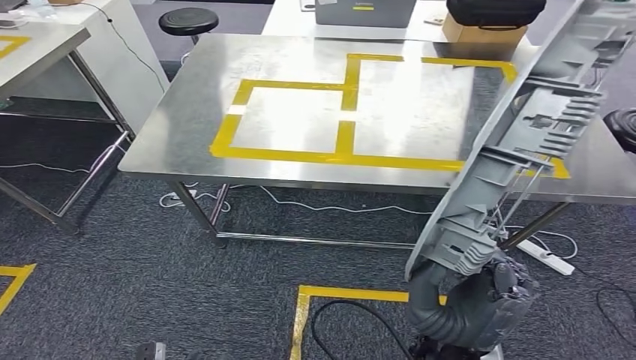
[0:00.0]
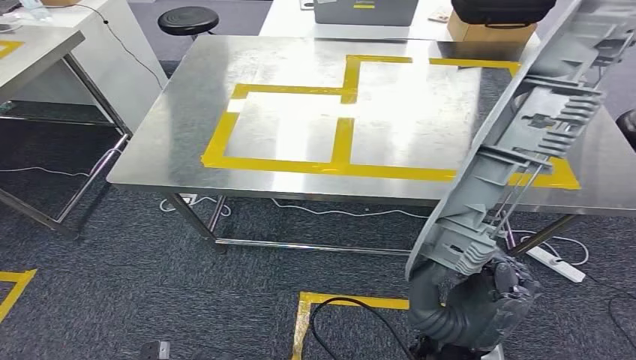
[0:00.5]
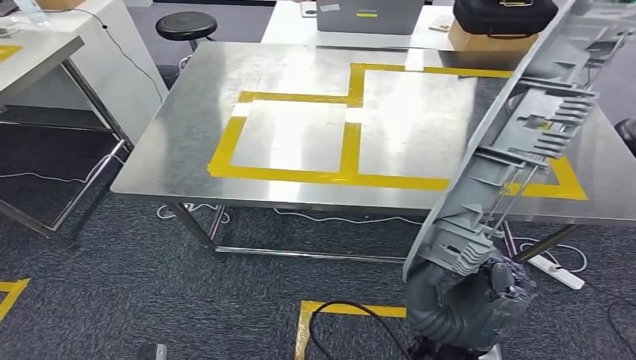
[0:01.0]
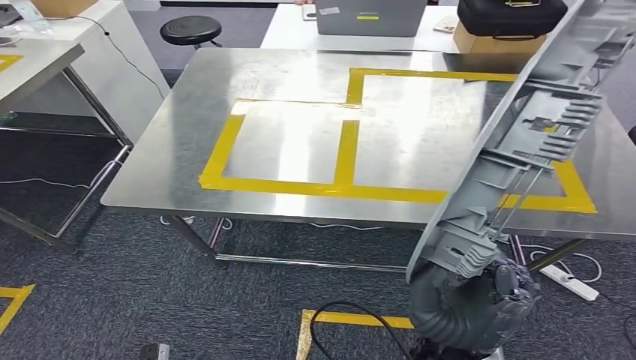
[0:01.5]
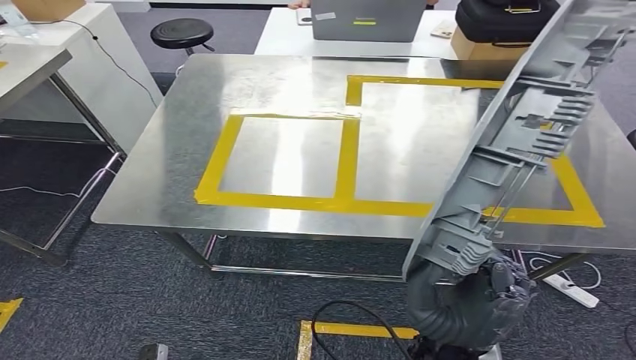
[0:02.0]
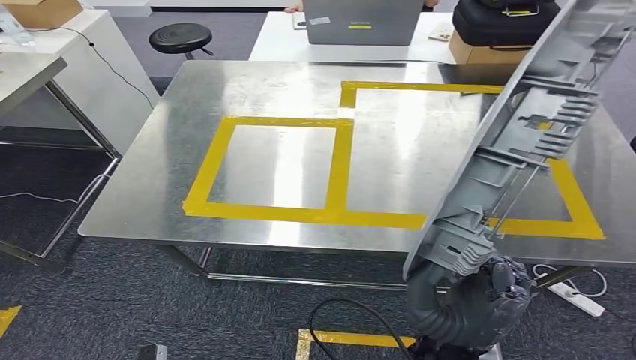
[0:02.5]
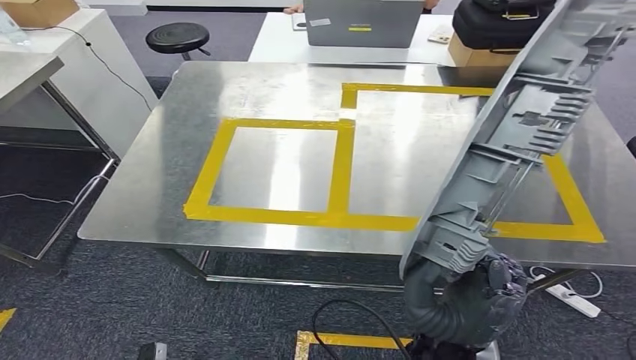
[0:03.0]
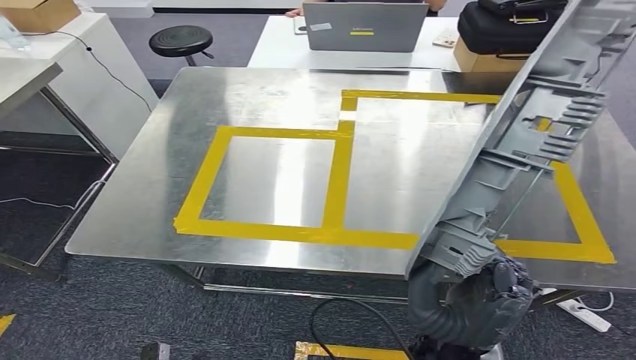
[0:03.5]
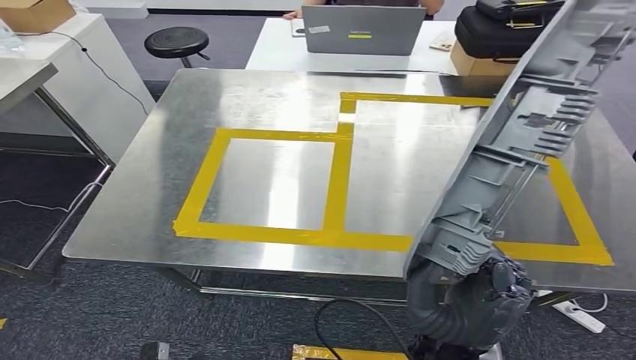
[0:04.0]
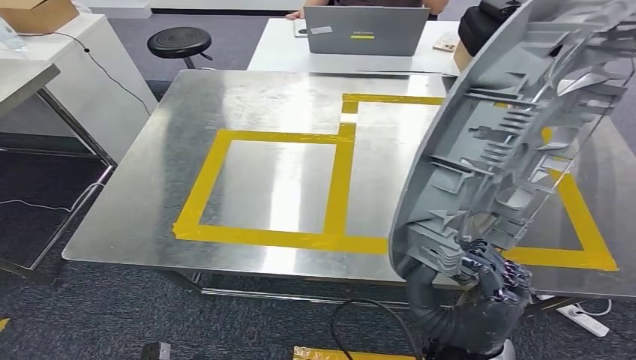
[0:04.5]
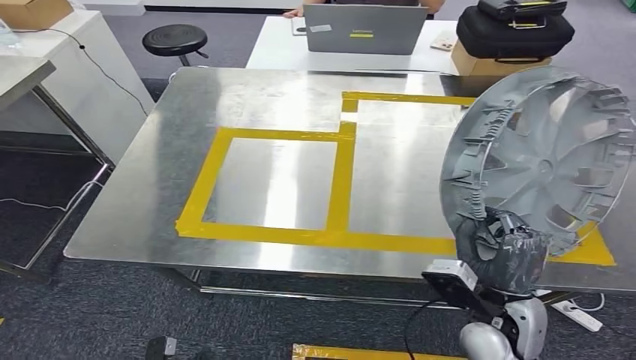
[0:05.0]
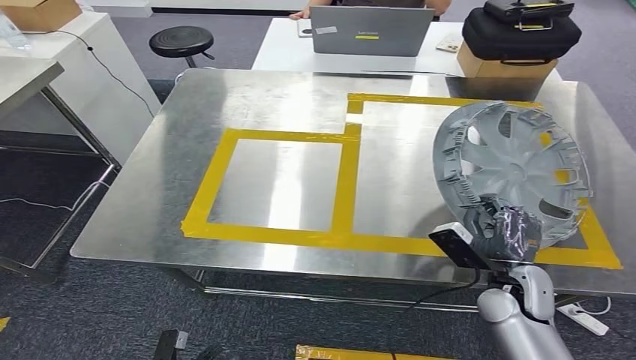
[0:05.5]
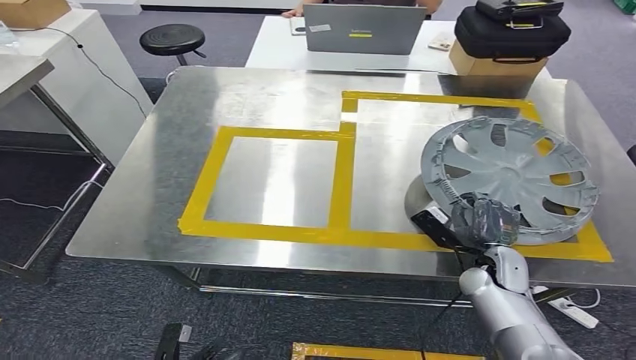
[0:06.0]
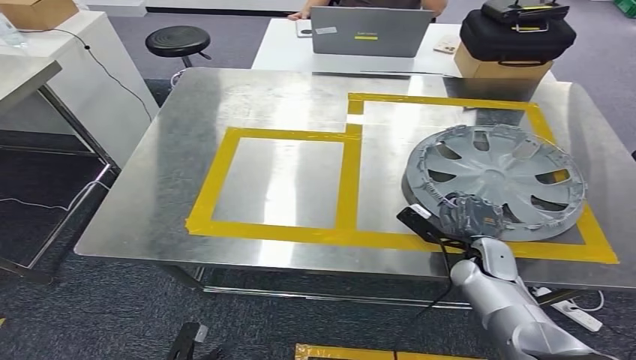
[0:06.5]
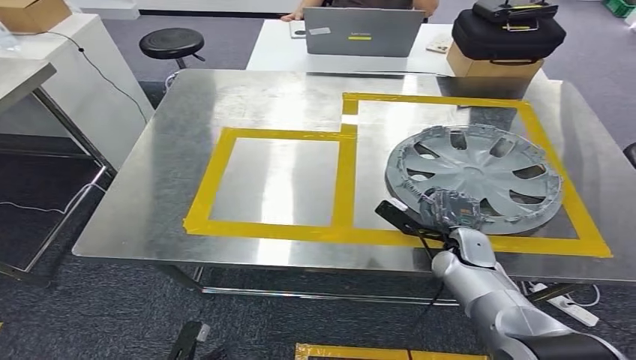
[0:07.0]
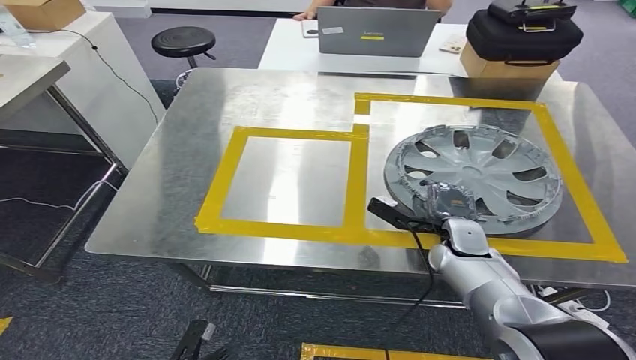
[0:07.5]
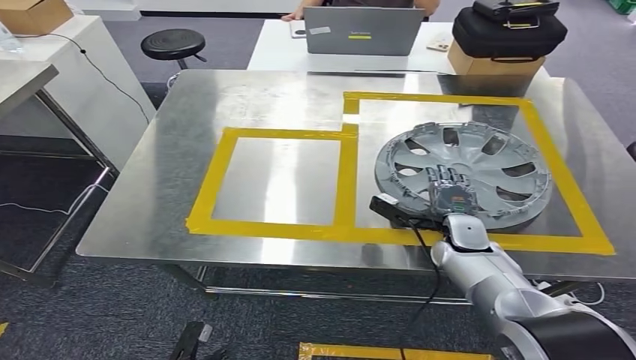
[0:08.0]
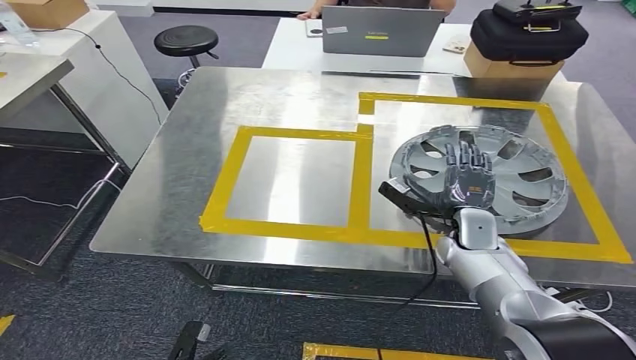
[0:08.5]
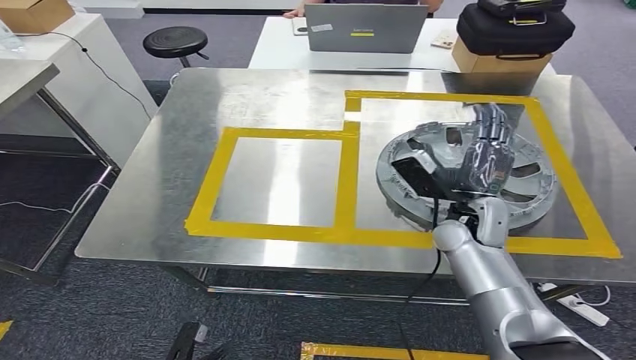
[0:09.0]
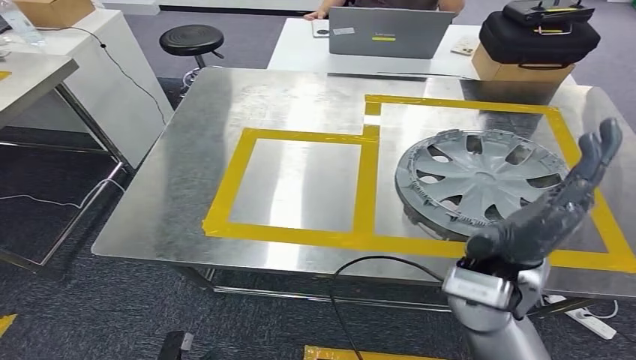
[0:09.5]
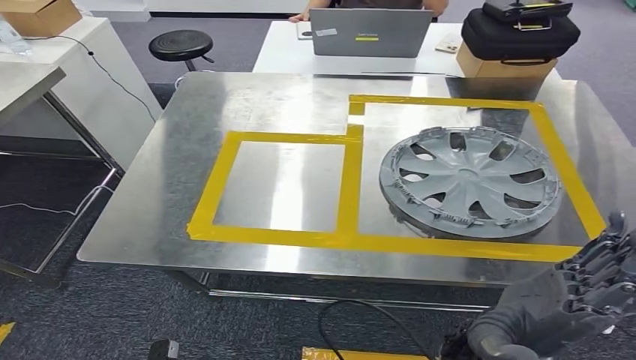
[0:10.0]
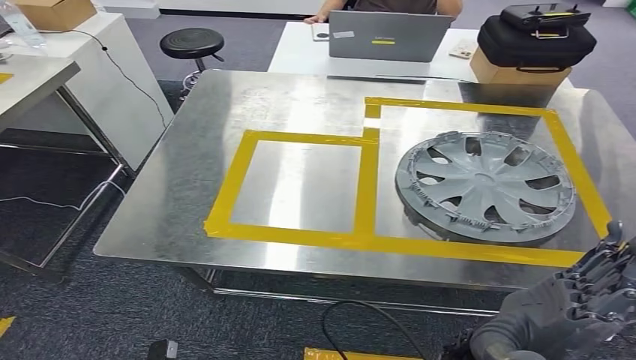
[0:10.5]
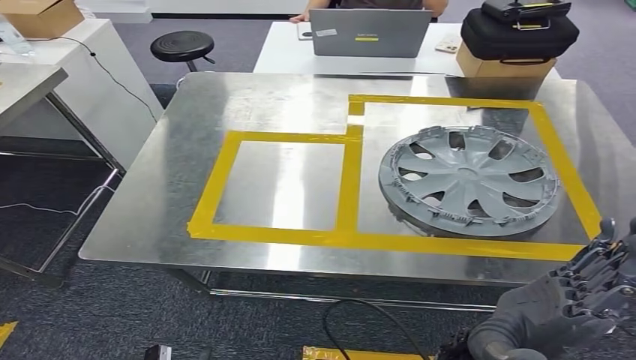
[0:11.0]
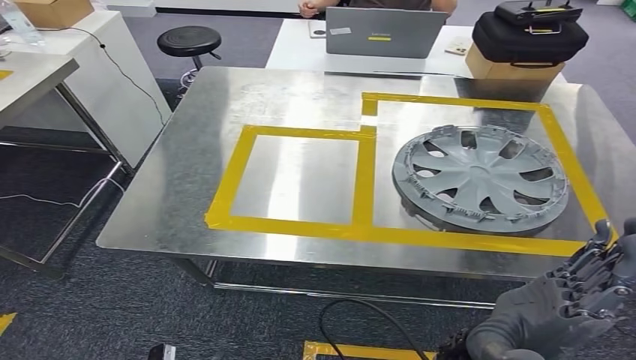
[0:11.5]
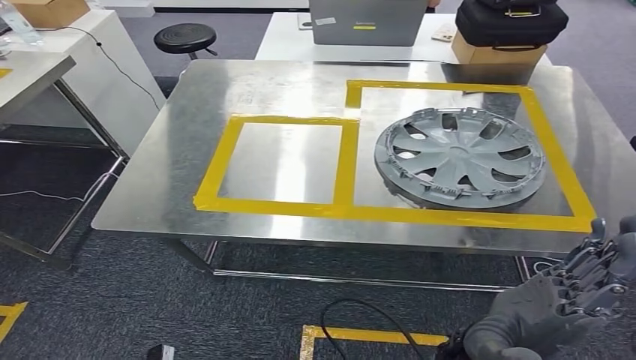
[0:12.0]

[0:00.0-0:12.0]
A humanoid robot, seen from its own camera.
Step, 0:00.0 to 0:03.5: Move the small component to the workbench.
Step, 0:04.0 to 0:10.0: Insert the small component into the corresponding slot on the workbench.

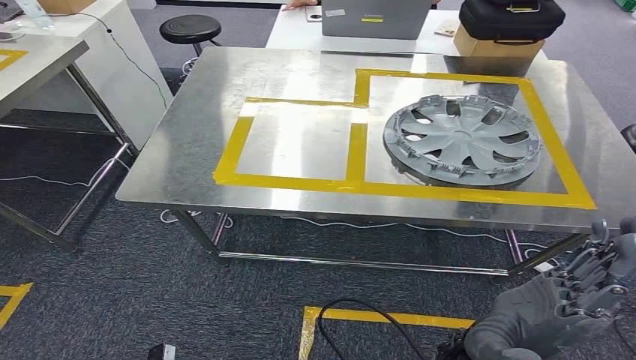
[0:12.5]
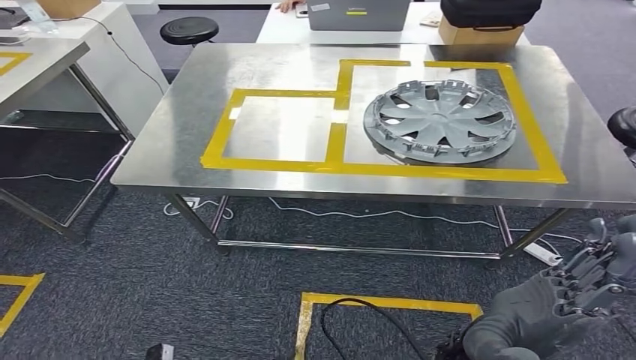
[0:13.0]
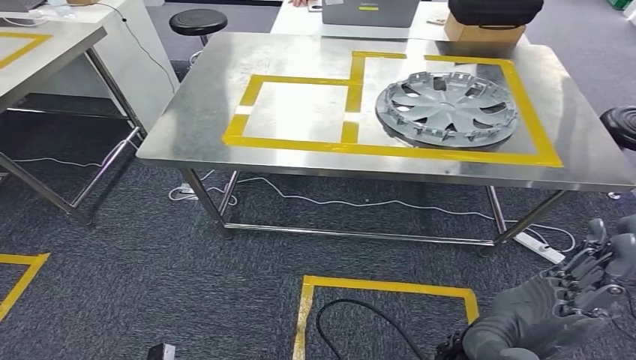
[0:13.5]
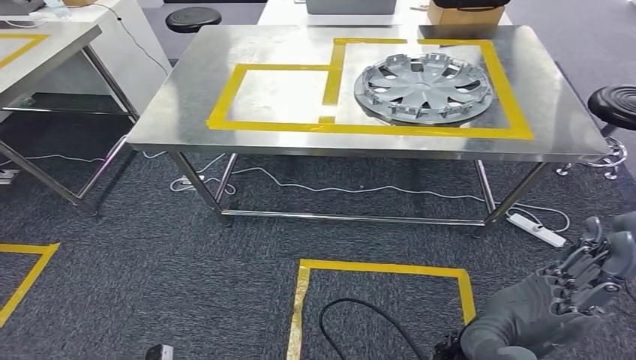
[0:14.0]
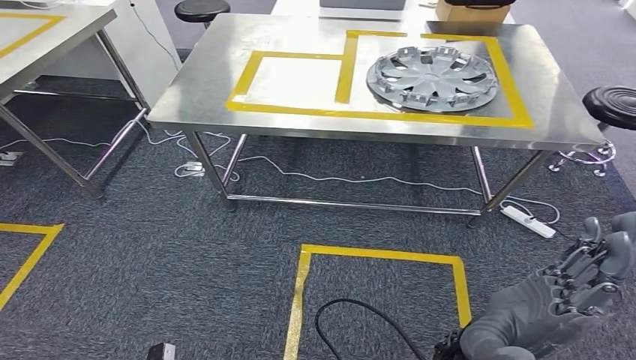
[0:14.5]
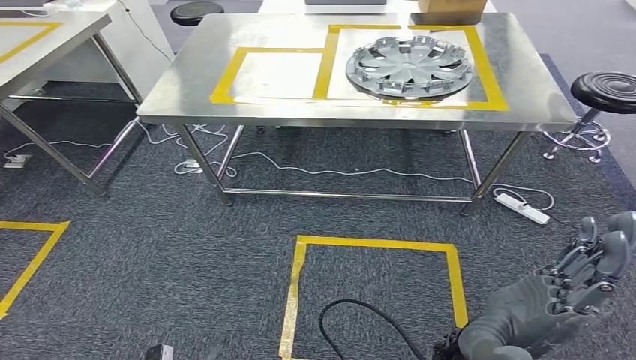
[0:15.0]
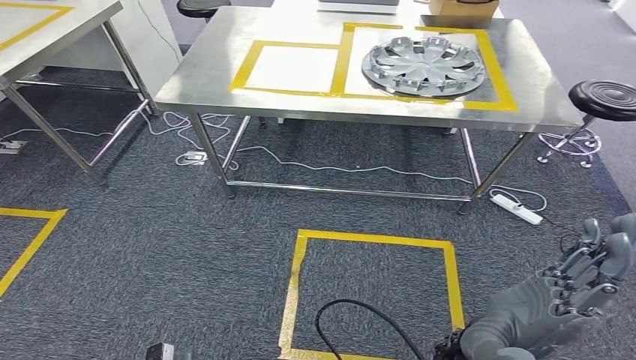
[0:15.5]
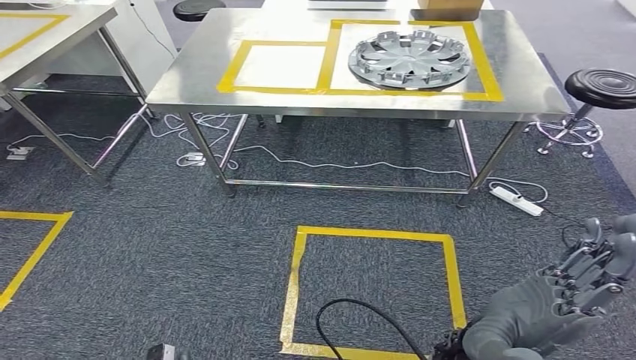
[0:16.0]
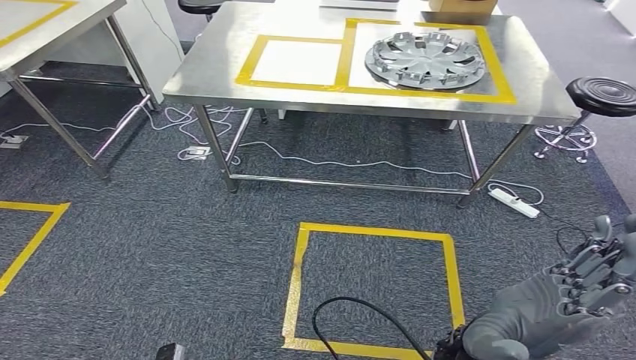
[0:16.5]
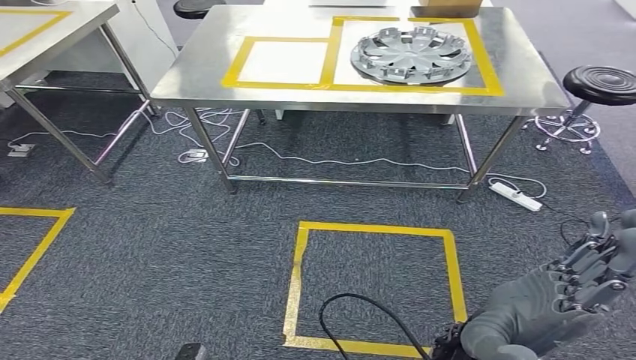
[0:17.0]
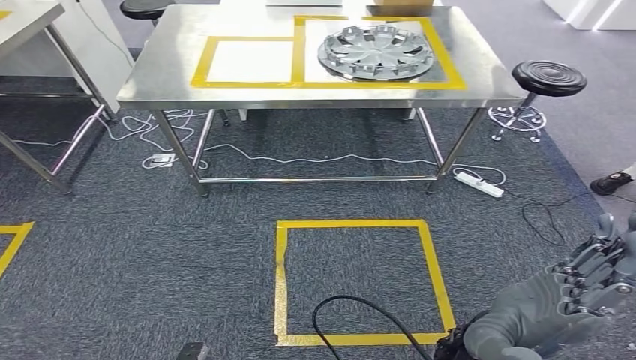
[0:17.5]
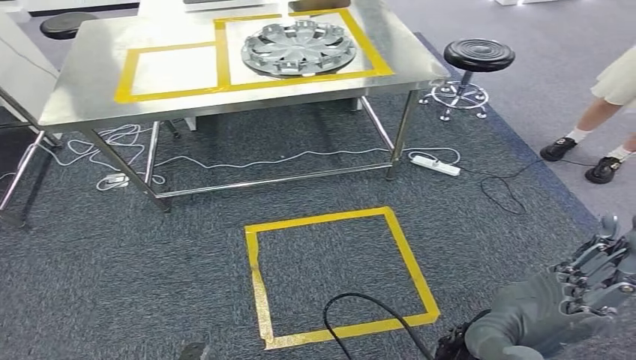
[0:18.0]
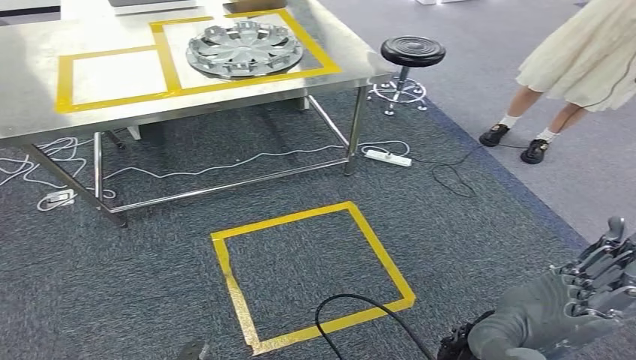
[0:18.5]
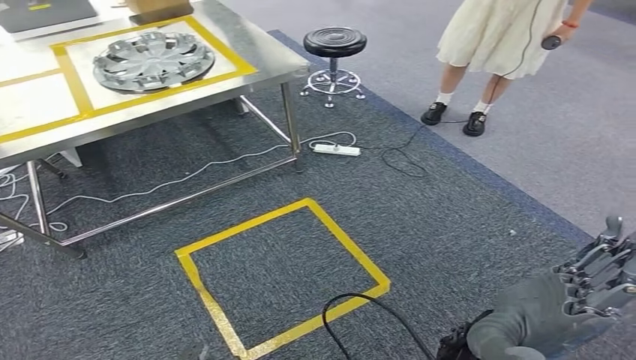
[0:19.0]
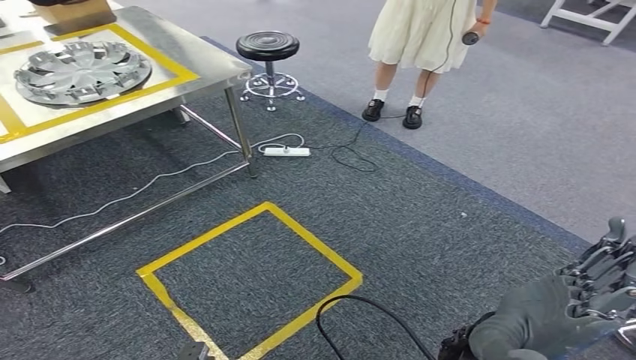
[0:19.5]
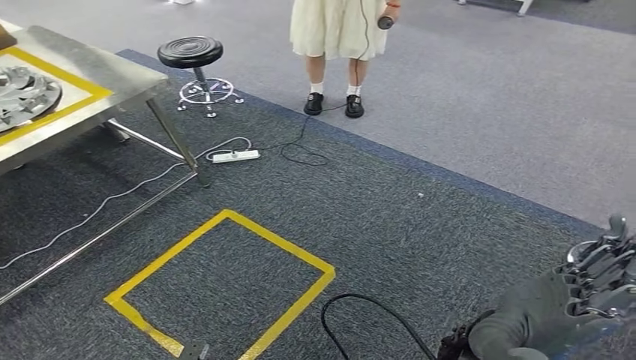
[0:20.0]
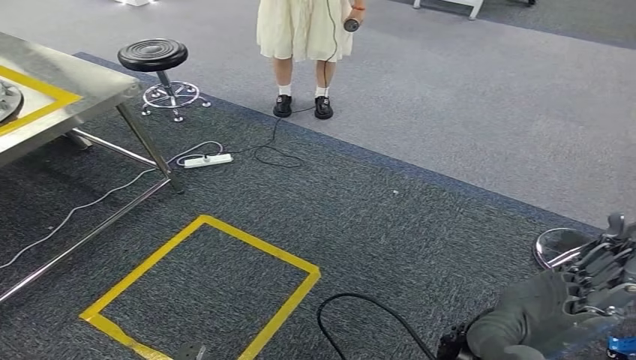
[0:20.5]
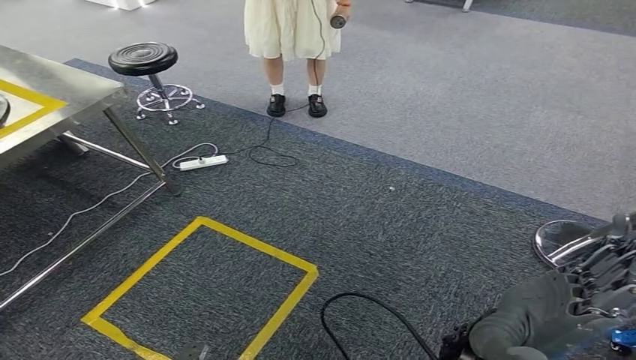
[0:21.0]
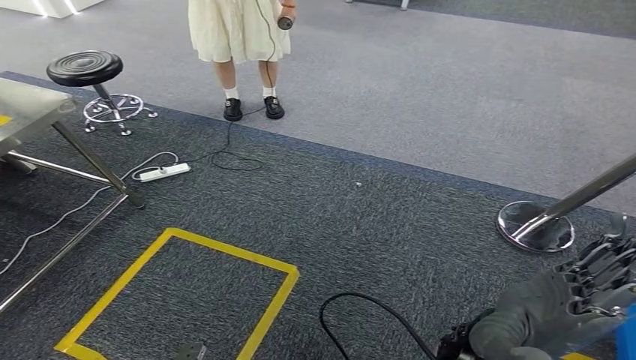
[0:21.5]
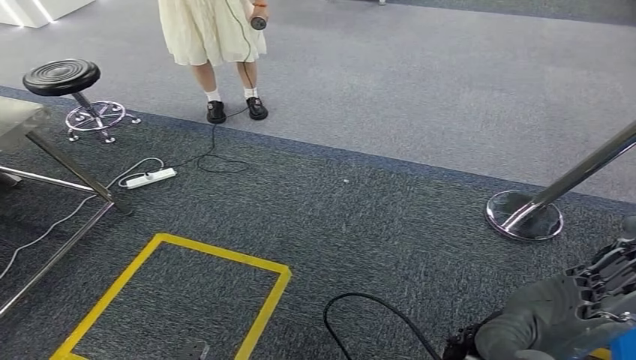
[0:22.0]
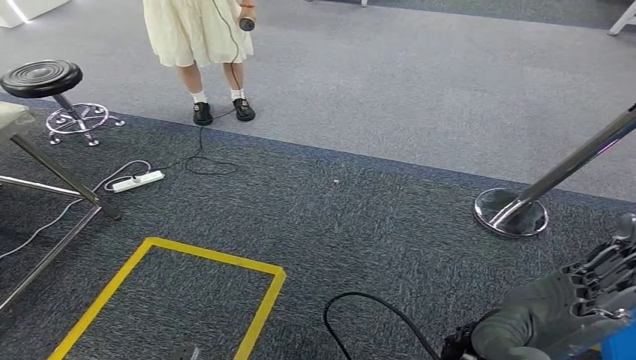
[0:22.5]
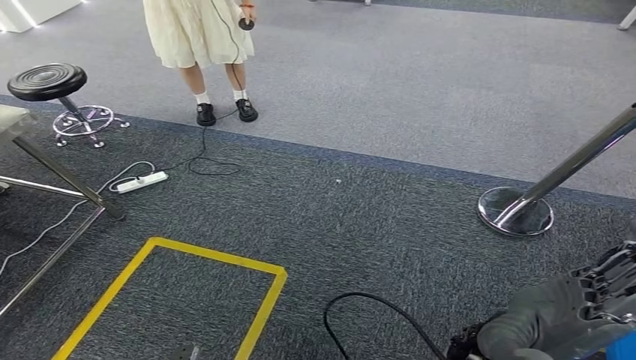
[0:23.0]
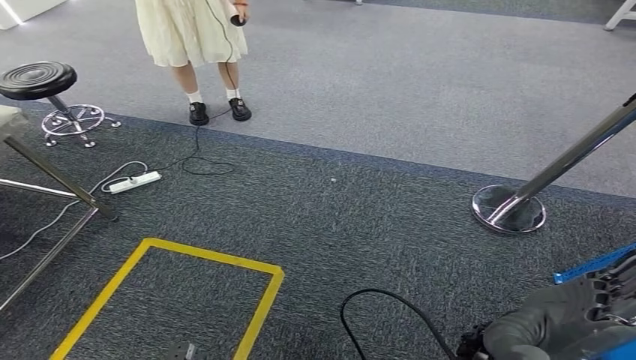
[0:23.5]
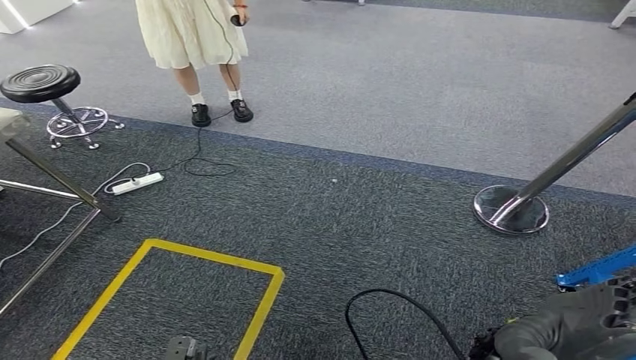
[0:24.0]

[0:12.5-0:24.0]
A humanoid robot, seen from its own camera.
0:22.0 to 0:24.0: There are only small adjustments of the hands.
